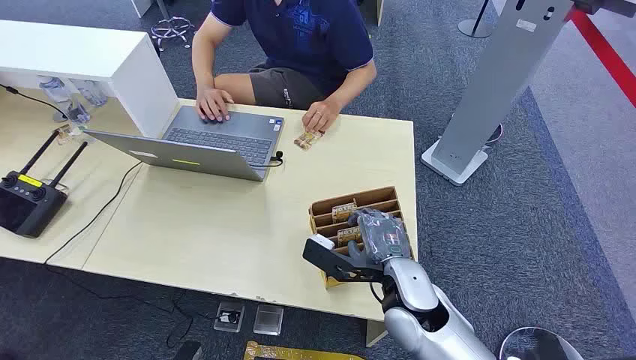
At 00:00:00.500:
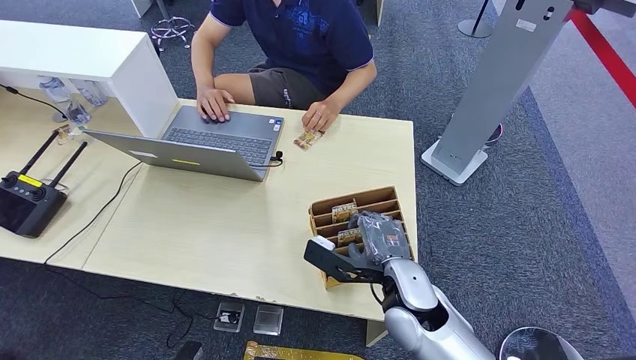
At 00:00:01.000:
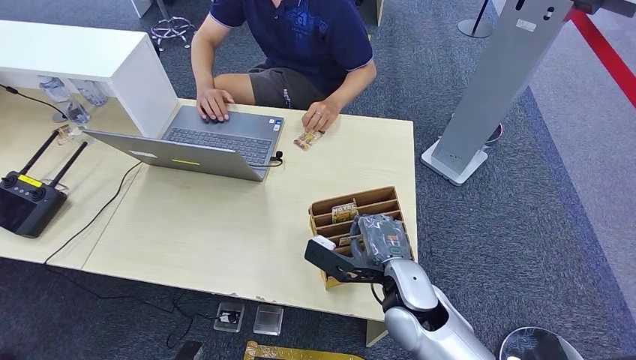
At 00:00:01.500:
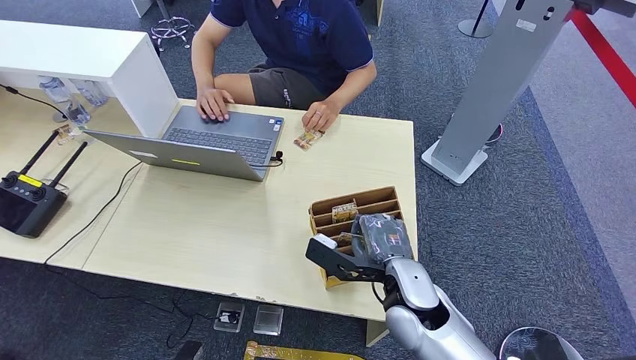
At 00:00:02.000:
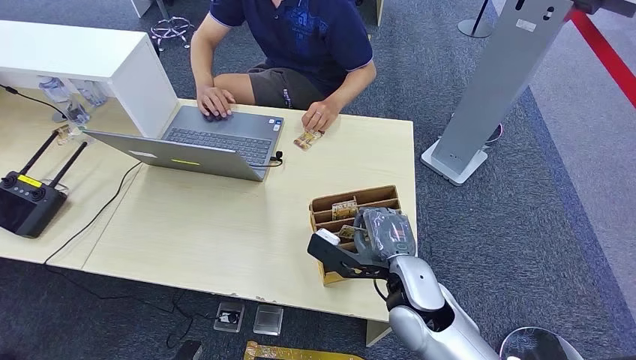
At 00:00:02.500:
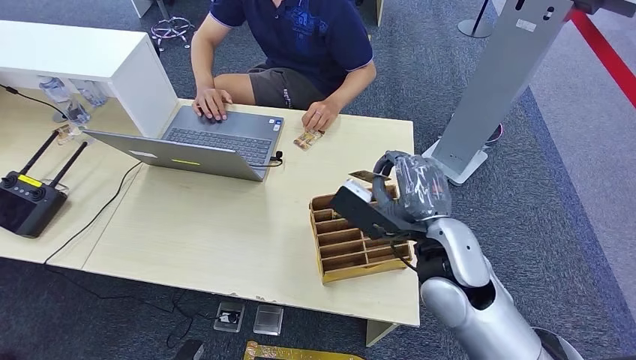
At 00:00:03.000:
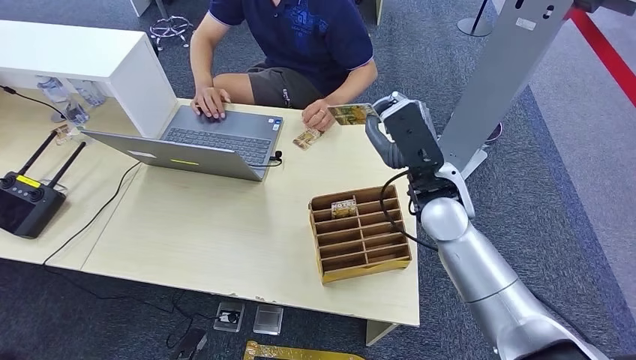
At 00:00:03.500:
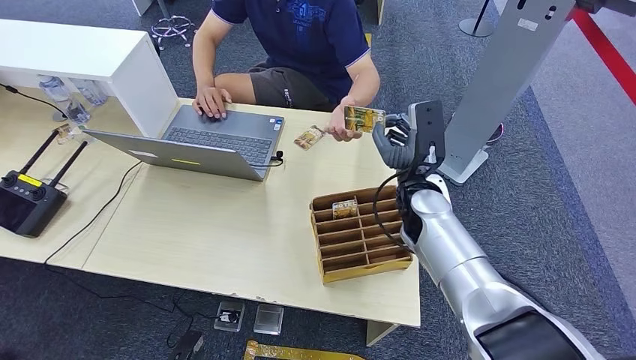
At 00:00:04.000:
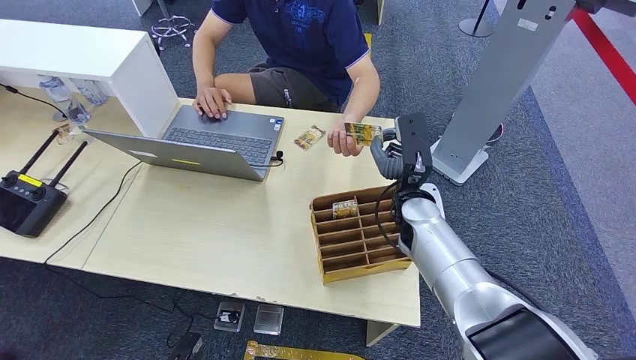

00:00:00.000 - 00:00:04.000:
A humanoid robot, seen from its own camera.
Step, 00:00:00.000 - 00:00:02.000: Pick up the key card from the card box.
Step, 00:00:02.500 - 00:00:04.000: Hand the key card to the target.
00:00:02.000 - 00:00:04.000: The right hand is displaced forward by approximately 15 cm.
